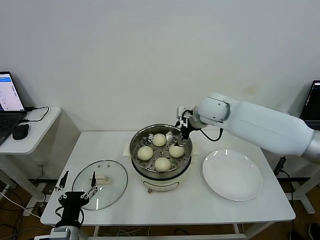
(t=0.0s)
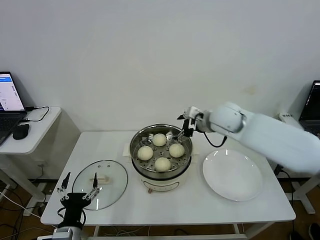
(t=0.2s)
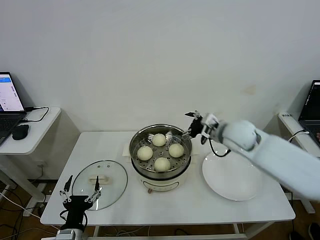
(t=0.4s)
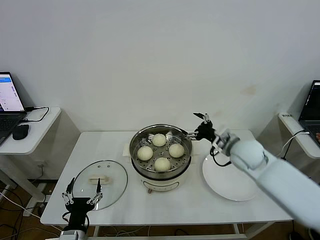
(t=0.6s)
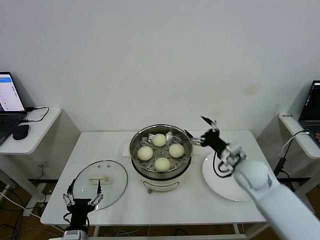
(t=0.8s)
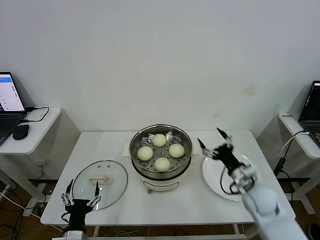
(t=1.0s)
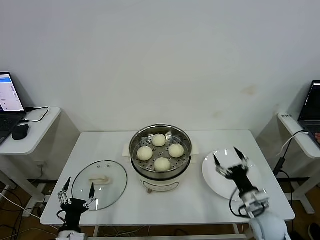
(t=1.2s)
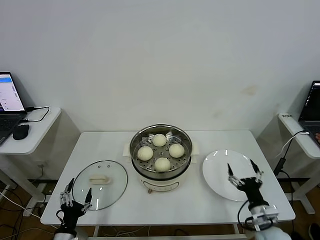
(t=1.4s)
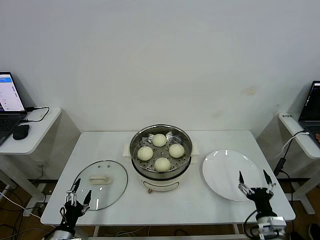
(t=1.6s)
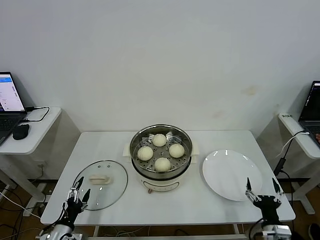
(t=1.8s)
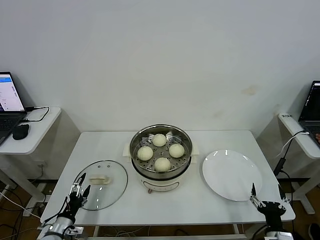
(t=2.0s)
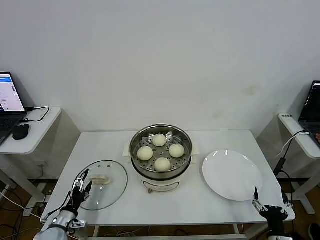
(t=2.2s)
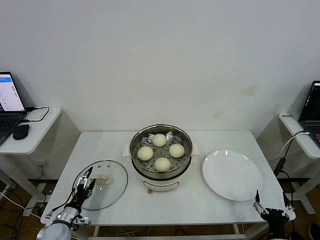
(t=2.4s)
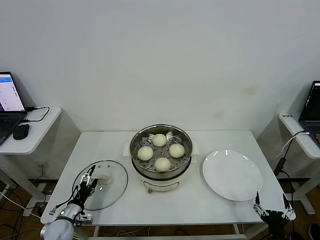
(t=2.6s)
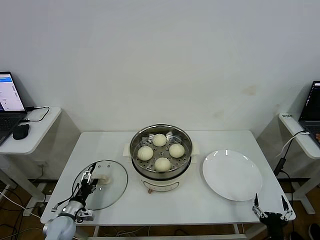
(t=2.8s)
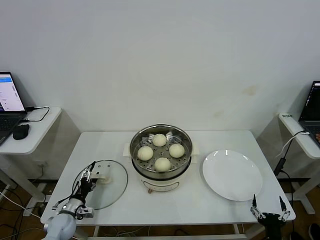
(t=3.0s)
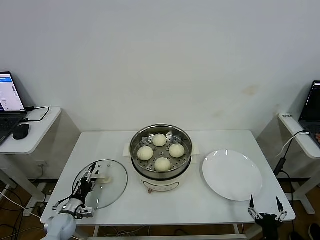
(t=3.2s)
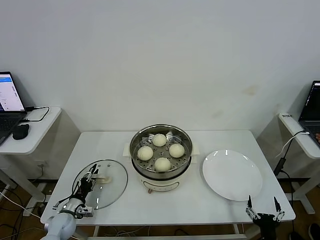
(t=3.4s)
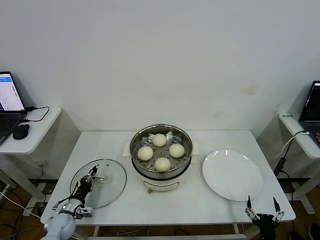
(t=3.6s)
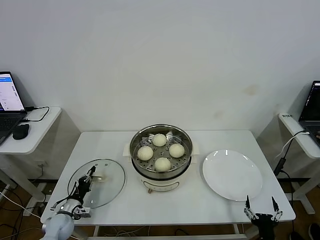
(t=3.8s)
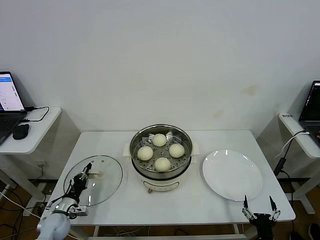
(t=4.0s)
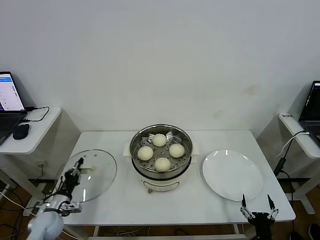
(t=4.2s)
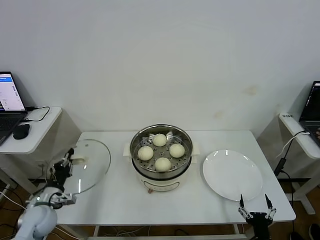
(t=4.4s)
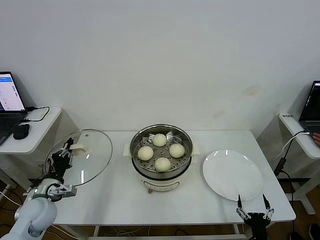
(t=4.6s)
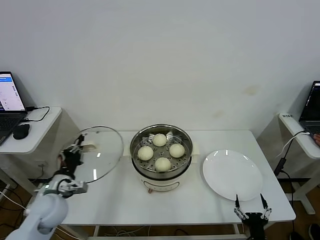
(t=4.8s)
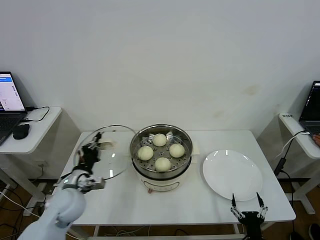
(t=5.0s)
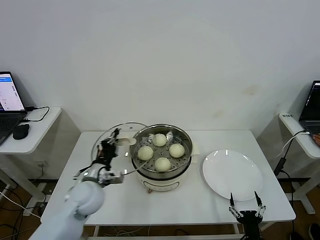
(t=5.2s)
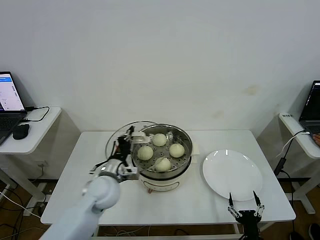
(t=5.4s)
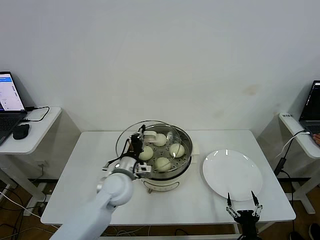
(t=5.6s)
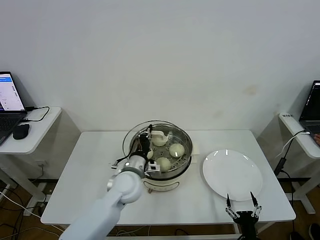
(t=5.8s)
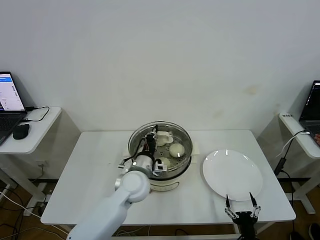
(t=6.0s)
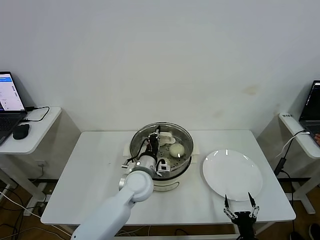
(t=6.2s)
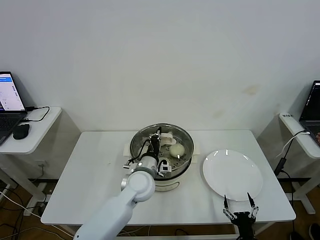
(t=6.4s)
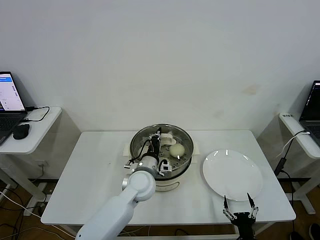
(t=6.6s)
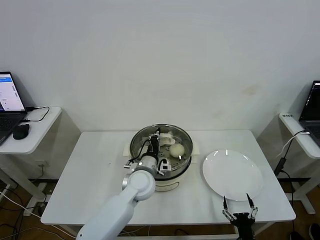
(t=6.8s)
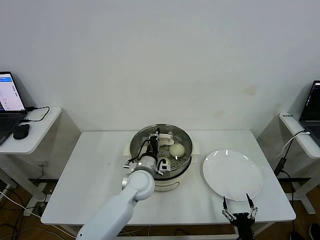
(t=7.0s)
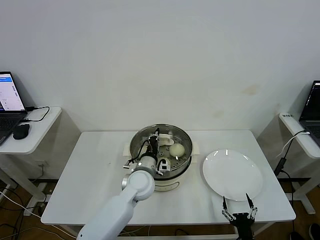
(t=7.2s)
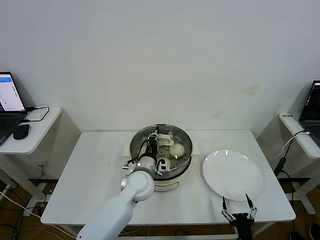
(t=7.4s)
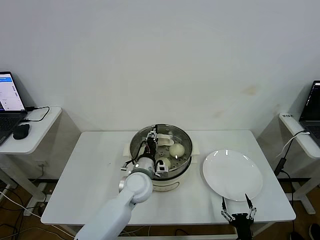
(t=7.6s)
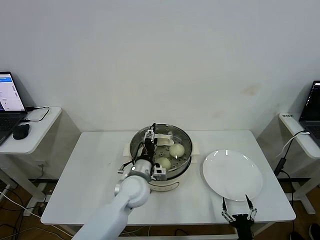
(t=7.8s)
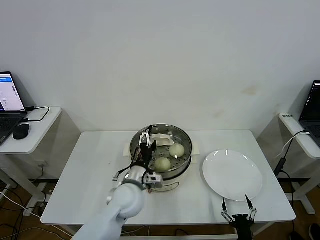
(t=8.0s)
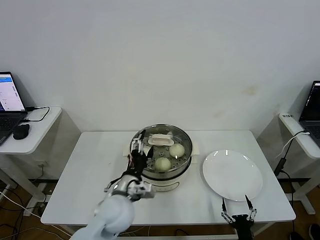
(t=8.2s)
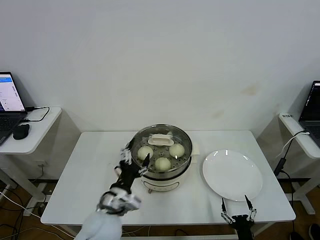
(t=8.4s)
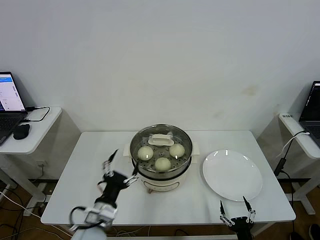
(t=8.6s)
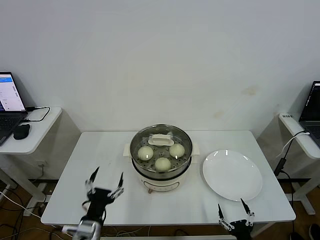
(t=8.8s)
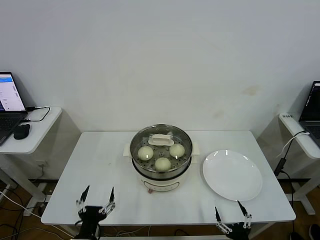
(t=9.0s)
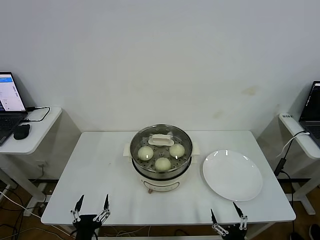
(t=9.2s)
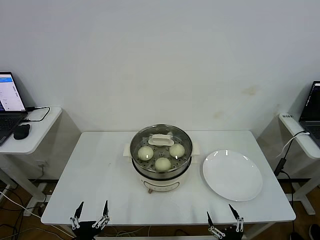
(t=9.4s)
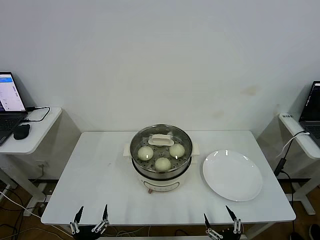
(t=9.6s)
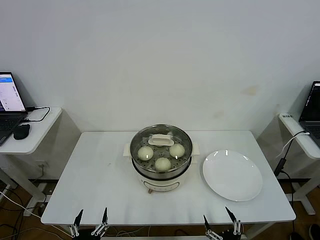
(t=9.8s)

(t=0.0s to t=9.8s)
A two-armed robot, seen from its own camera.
Step, t=0.2s - t=4.0s: Grasp the pot lid with left gripper.
Step, t=4.2s - t=8.0s: Place the pot lid on the steamer with left gripper.
t=0.0s - t=1.4s: The right gripper shifts about 40 cm backward, downward and to the right. Meanwhile the left gripper is displaced downward by roughly 5 cm.
t=1.4s - t=2.8s: The left gripper heads forward, downward and to the left, covering some 15 cm; the right gripper is displaced backward and downward by about 10 cm.
t=2.8s - t=4.2s: The left gripper closes its fingers.
t=4.2s - t=5.6s: The left gripper heads to the right and upward, covering some 30 cm.
t=5.6s - t=7.0s: The left gripper goes about 5 cm to the right.
t=7.0s - t=8.4s: The left gripper is displaced backward and to the left by some 15 cm, and opens up.
t=8.4s - t=9.8s: The left gripper moves backward, downward and to the left, some 25 cm, while the right gripper ends up roughly 5 cm from where it was.
